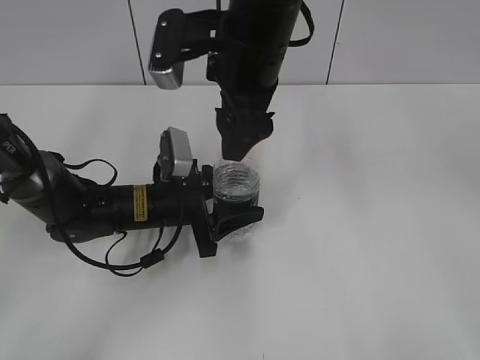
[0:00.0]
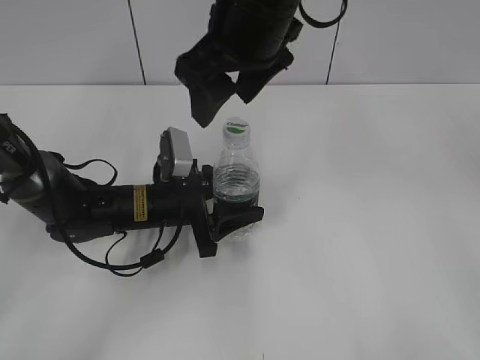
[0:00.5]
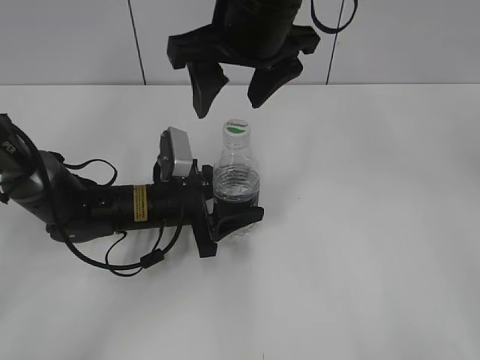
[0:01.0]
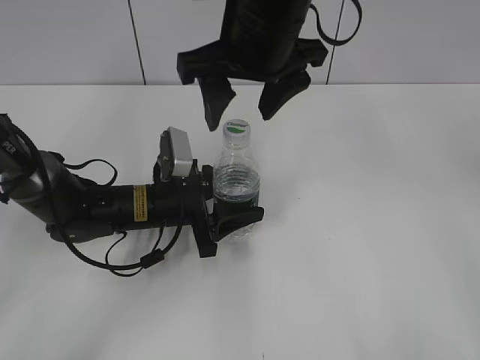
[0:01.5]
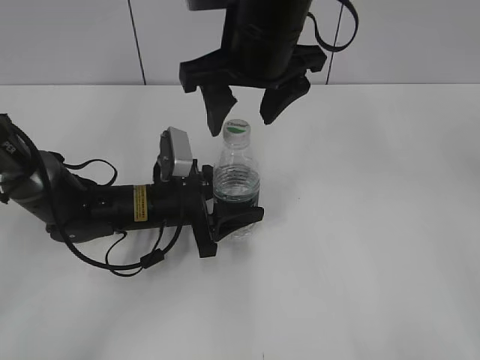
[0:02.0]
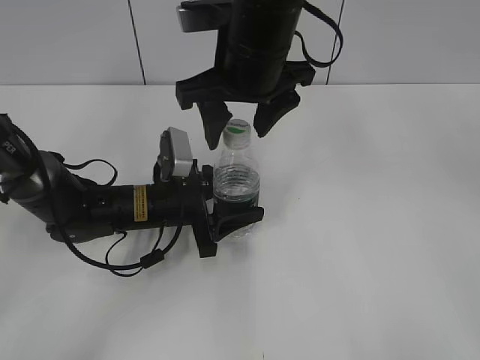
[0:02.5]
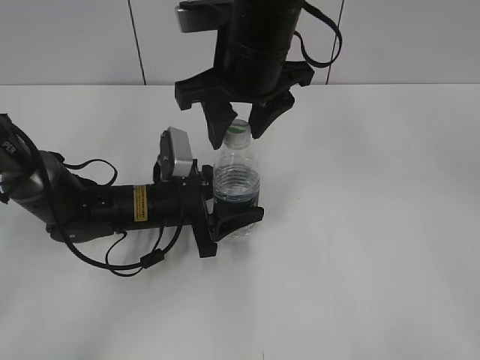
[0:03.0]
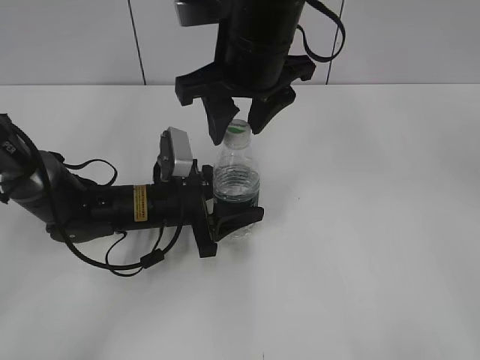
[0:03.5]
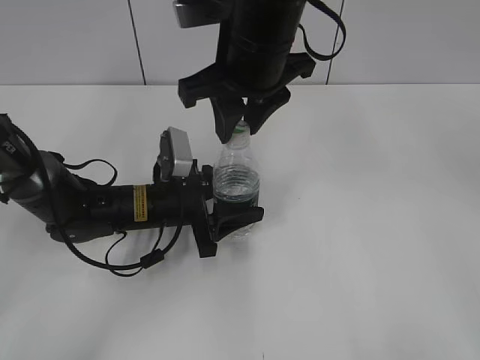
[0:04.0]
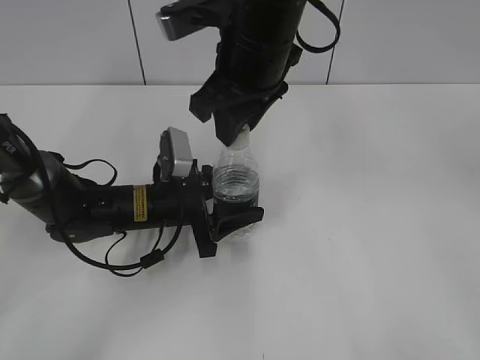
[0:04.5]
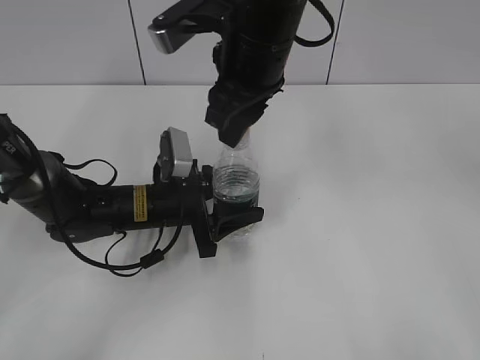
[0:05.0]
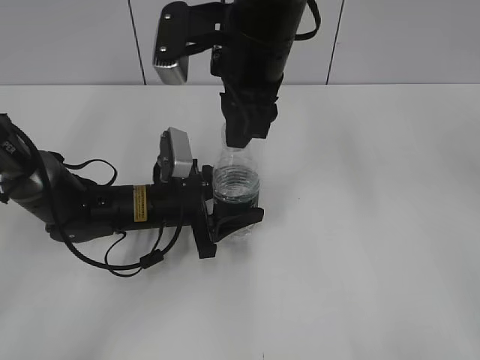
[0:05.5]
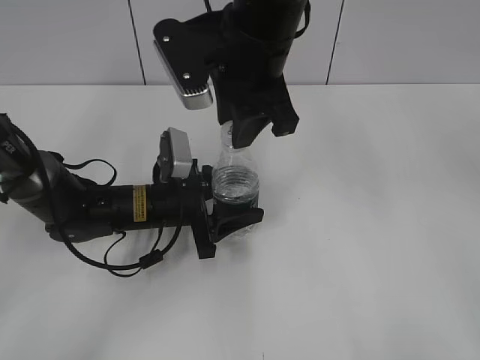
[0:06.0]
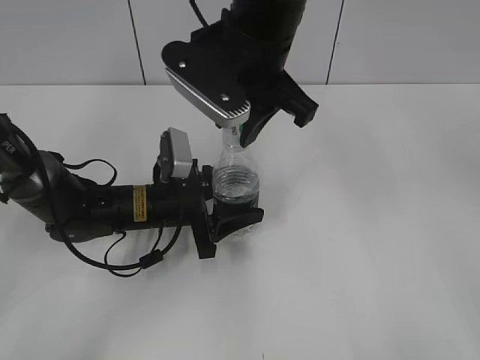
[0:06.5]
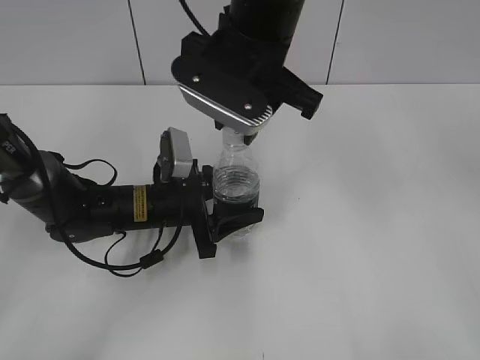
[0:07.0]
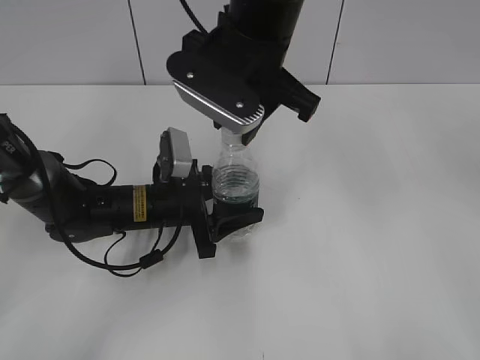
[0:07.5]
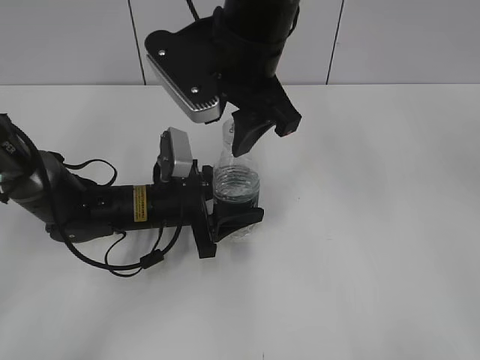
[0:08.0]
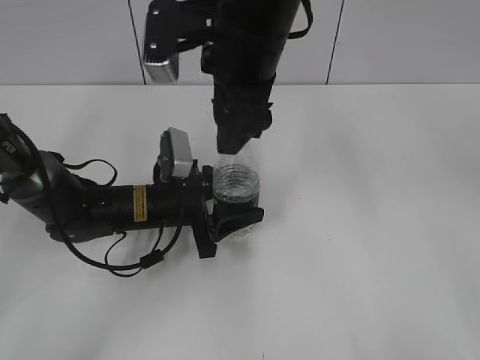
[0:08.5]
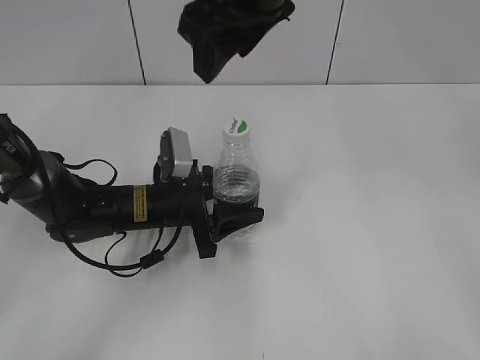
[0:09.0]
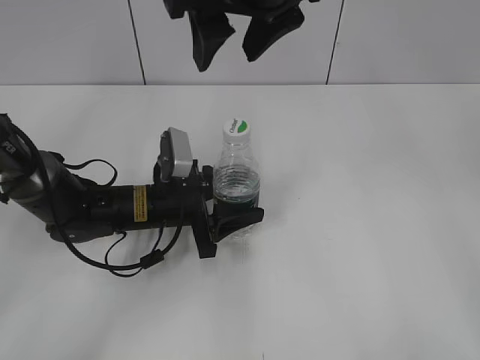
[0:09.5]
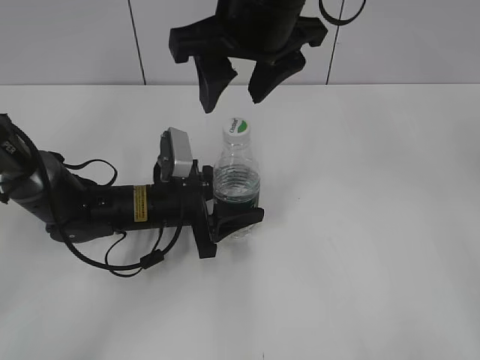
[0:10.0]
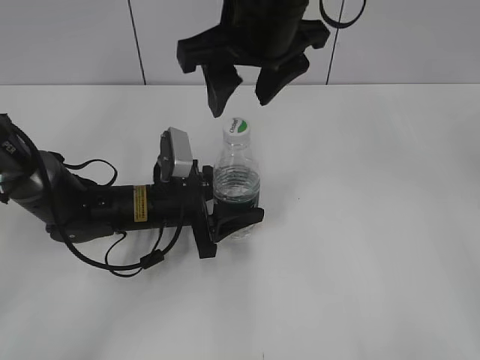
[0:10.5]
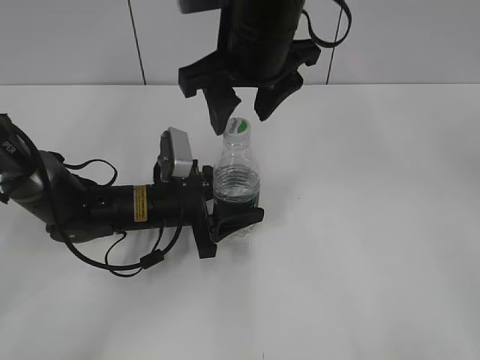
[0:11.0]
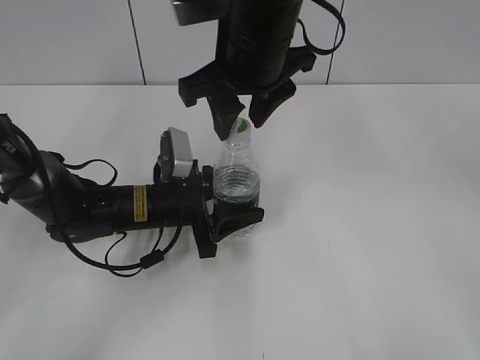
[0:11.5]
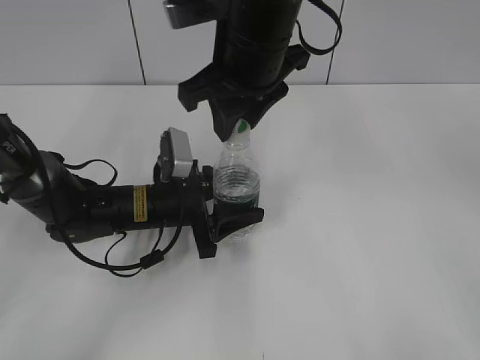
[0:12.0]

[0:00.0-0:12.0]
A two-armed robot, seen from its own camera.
0:02.0 to 0:04.0: The right gripper closes up.
0:06.0 to 0:08.0: The right gripper opens up.
0:10.0 to 0:12.0: The right gripper closes its fingers.

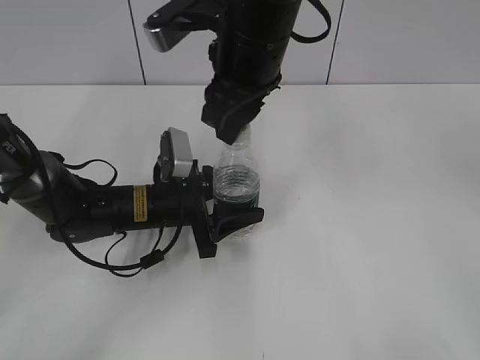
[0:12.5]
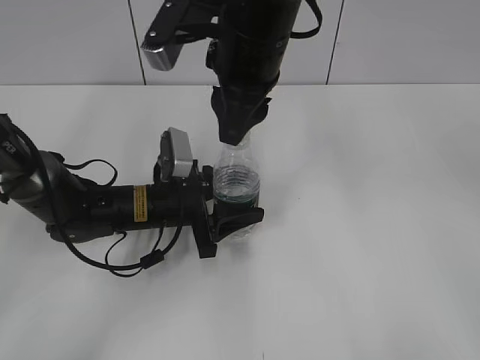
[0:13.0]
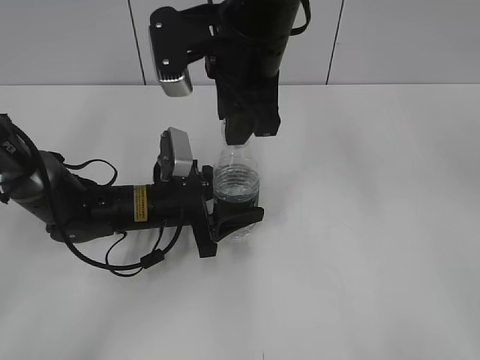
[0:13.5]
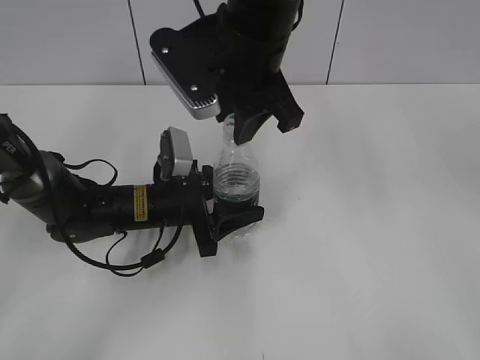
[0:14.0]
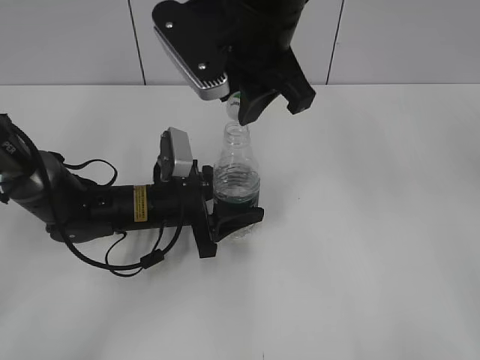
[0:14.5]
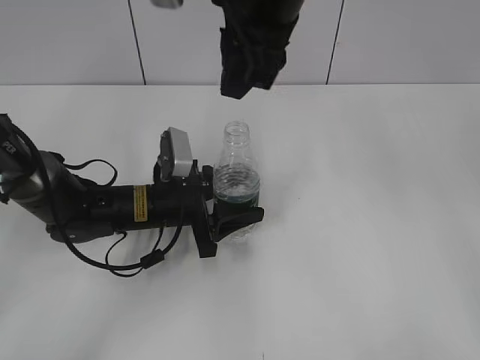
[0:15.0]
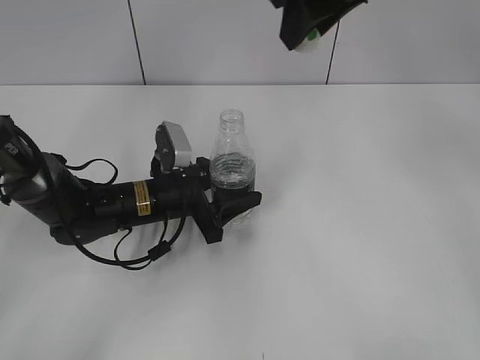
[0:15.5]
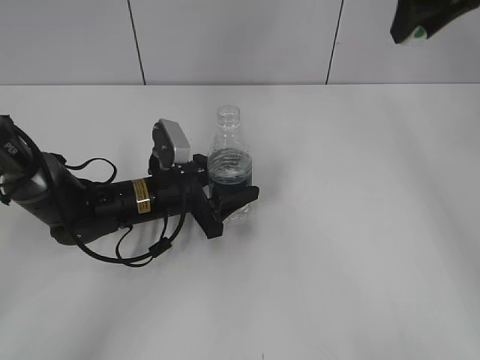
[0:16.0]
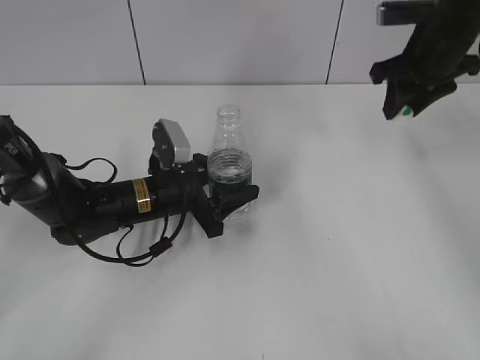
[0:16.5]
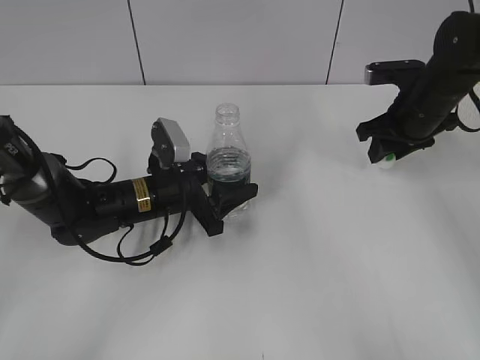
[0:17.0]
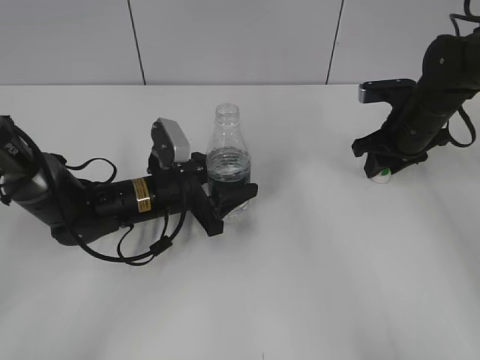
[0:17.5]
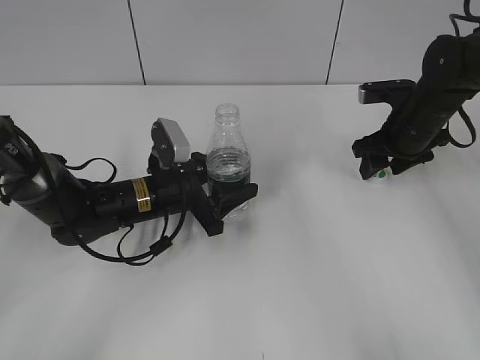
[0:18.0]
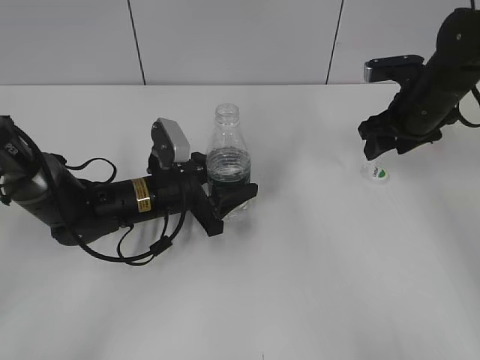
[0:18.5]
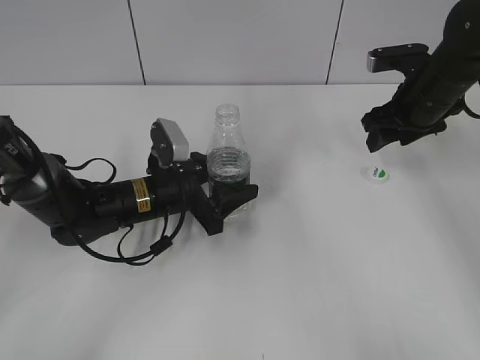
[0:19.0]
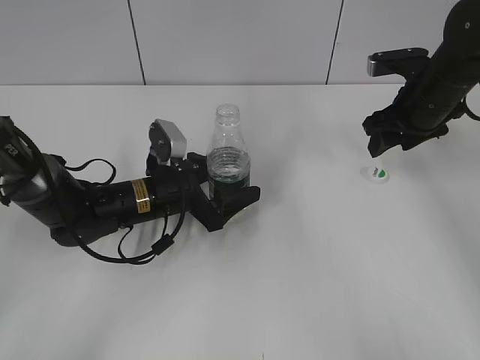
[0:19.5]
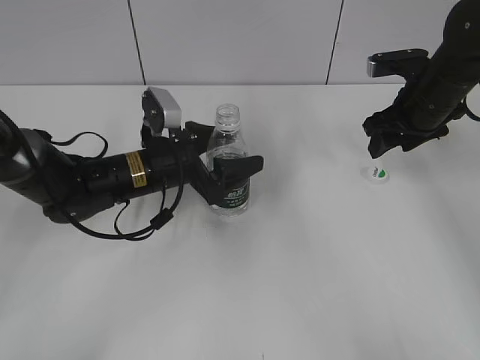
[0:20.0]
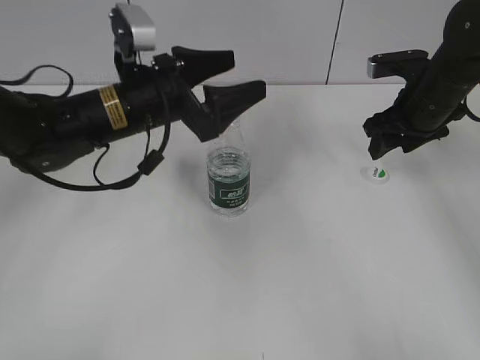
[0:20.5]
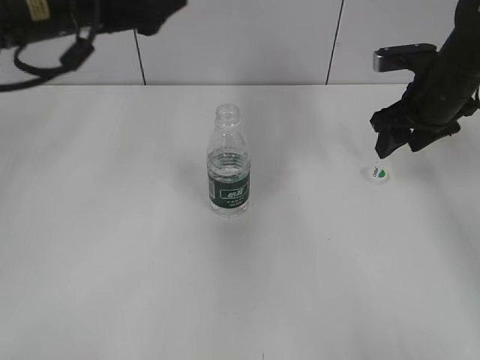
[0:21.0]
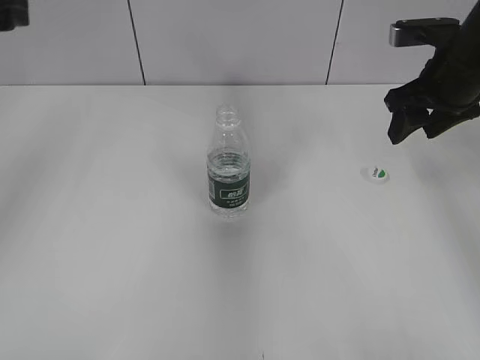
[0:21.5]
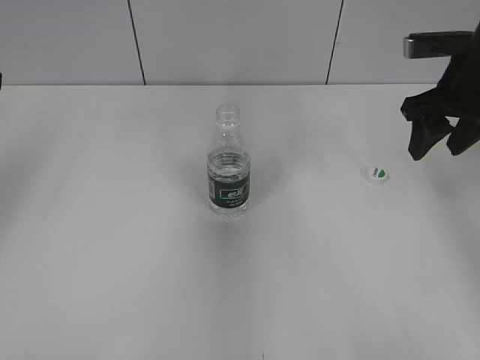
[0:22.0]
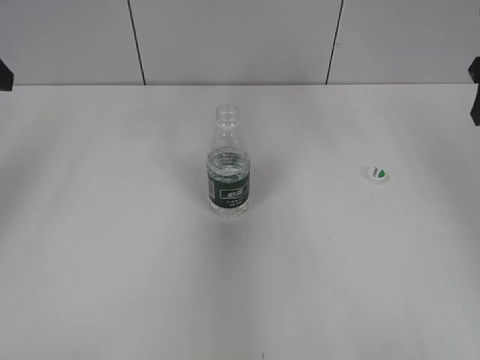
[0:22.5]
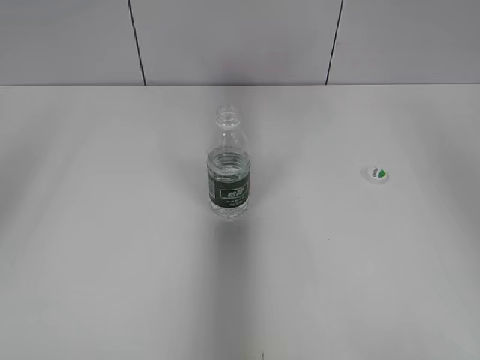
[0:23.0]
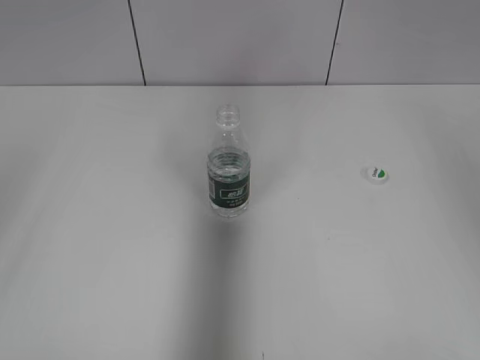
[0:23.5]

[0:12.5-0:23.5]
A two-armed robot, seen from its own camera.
Step, 0:12.5 to 0:14.5: Unscrew the bottle cap with the right gripper while holding the bottle with the left gripper.
Step, 0:15.0 to 0:18.0: Place the bottle cap on the table with the right gripper.
Step, 0:18.5 to 0:20.0: Place the bottle on the table with the left gripper.
0:14.5 to 0:16.0: The right gripper heads to the right and forward, covering roughly 20 cm.
0:16.0 to 0:18.0: The right gripper heads downward, covering about 20 cm, and opens its fingers.
0:18.0 to 0:20.0: The left gripper opens its fingers.
0:20.0 to 0:21.5: The left gripper shifts some 30 cm upward and to the left. The right gripper goes approximately 5 cm upward.
0:21.5 to 0:23.5: The right gripper is displaced upward and backward by about 25 cm. The left gripper heads backward, covering roughly 20 cm.

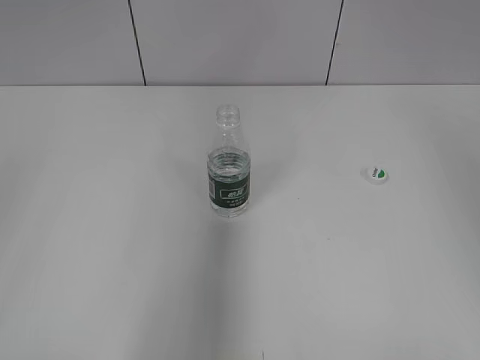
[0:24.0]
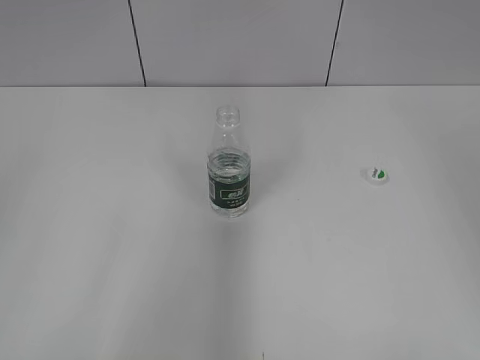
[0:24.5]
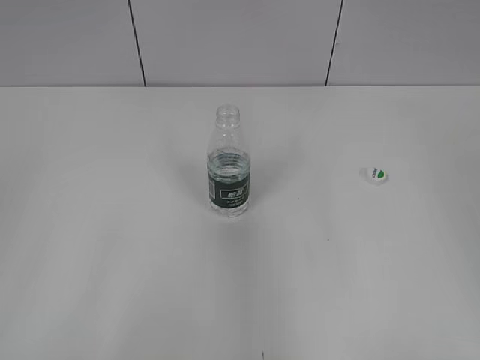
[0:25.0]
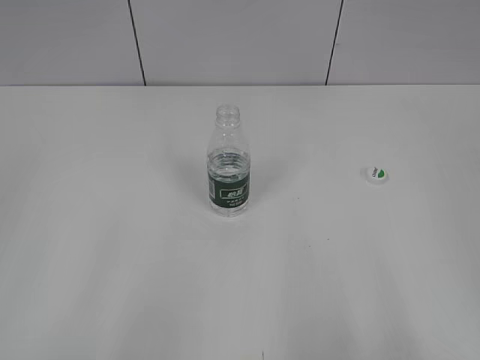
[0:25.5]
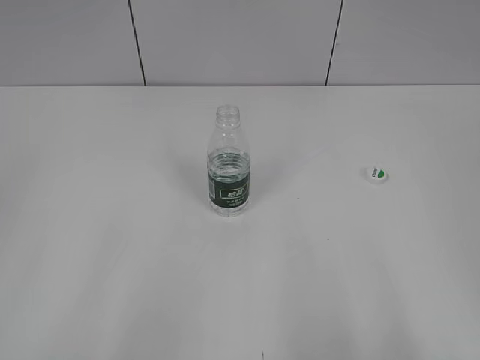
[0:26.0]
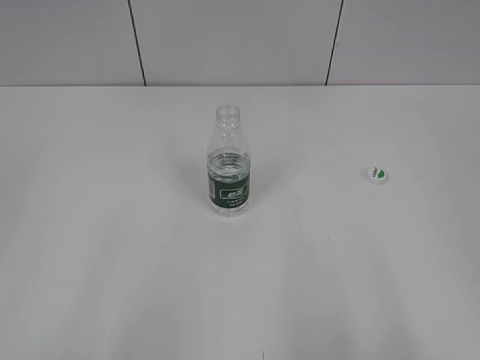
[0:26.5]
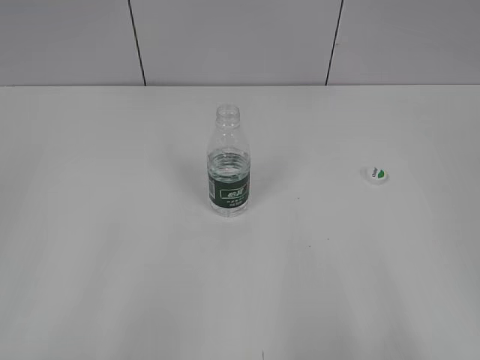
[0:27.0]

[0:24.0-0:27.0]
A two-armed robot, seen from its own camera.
0:24.0 to 0:25.5: The left gripper moves approximately 5 cm; the right gripper moves backward and downward, approximately 25 cm.
0:25.5 to 0:27.0: Both grippers stay put.
